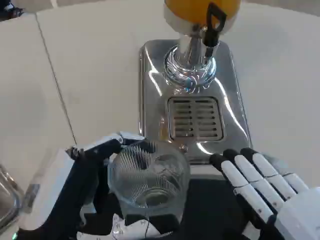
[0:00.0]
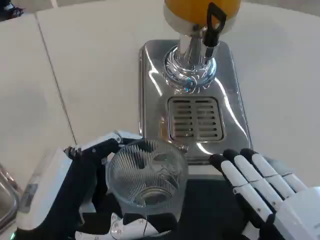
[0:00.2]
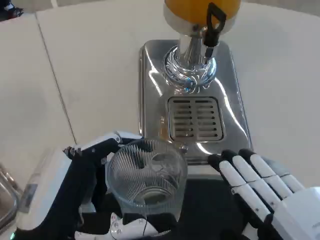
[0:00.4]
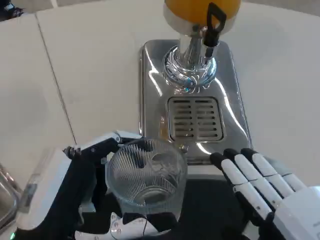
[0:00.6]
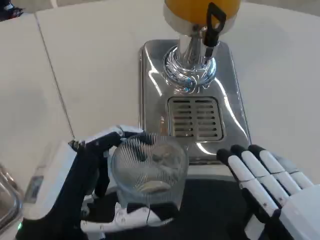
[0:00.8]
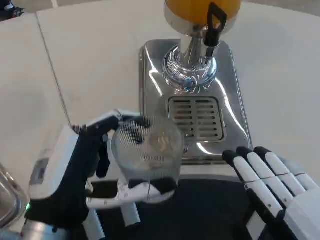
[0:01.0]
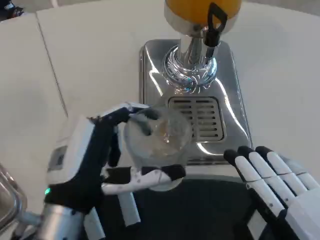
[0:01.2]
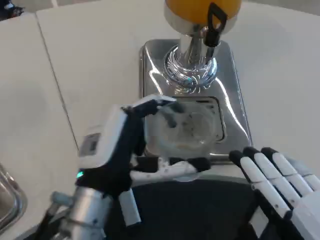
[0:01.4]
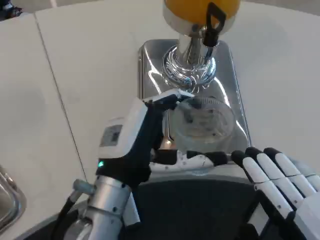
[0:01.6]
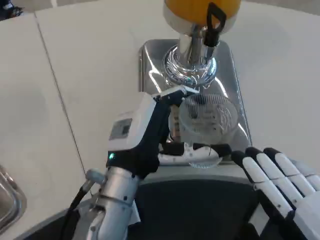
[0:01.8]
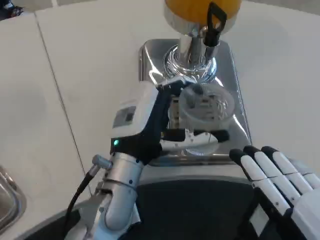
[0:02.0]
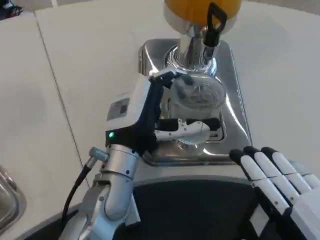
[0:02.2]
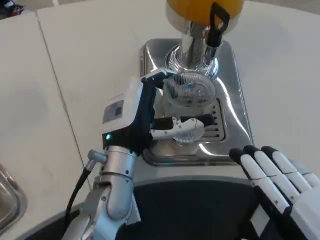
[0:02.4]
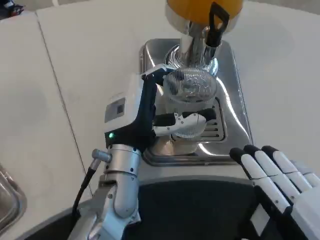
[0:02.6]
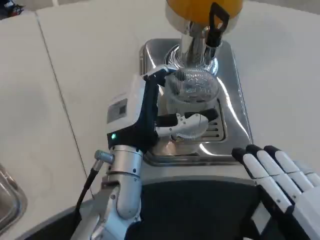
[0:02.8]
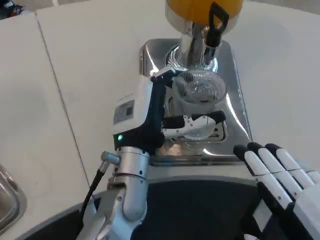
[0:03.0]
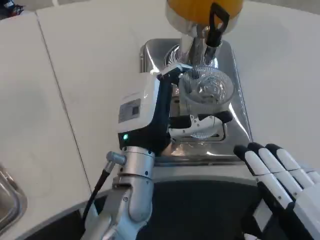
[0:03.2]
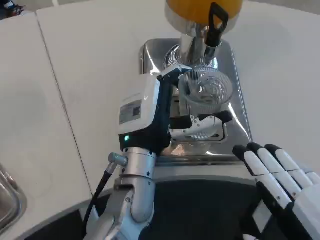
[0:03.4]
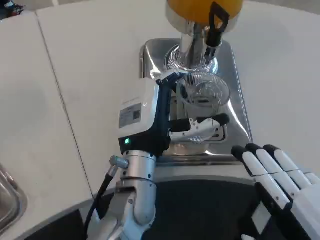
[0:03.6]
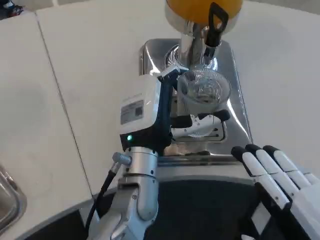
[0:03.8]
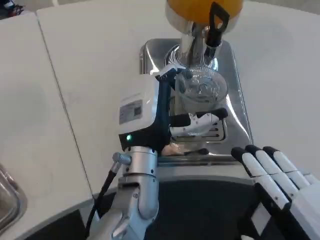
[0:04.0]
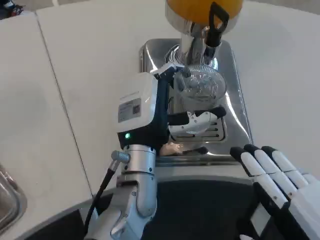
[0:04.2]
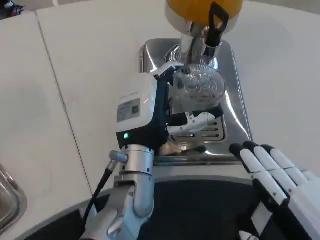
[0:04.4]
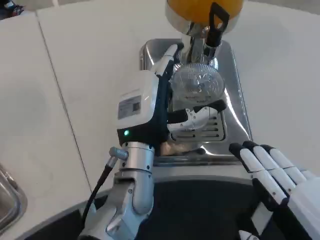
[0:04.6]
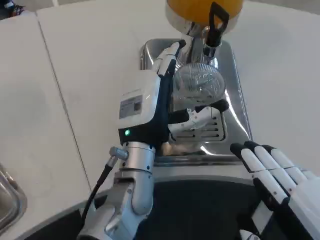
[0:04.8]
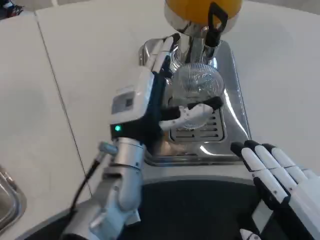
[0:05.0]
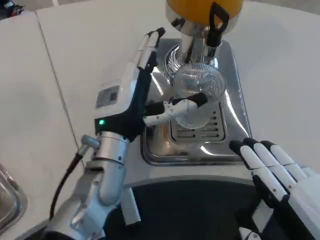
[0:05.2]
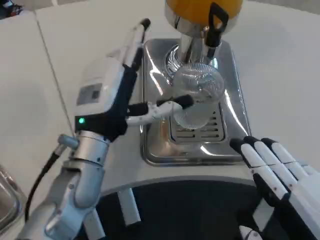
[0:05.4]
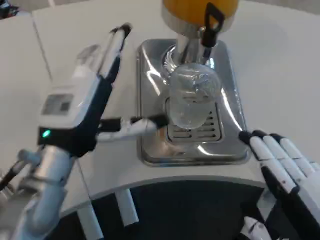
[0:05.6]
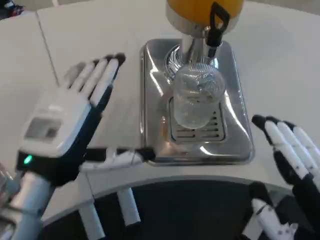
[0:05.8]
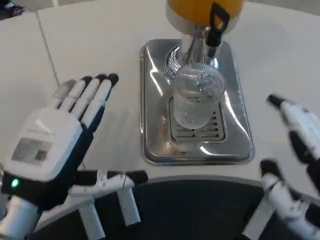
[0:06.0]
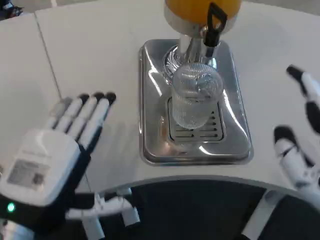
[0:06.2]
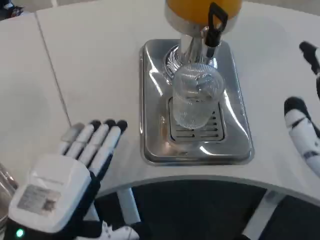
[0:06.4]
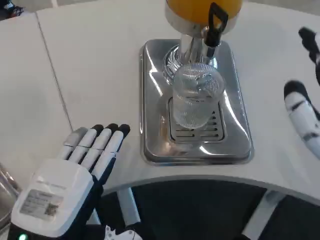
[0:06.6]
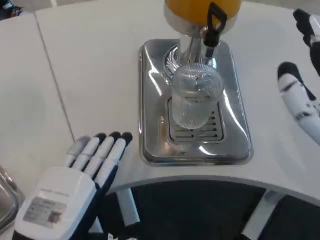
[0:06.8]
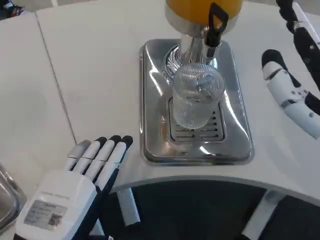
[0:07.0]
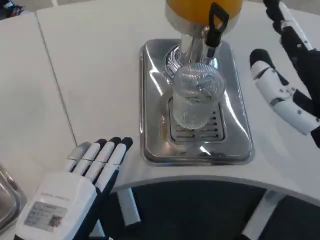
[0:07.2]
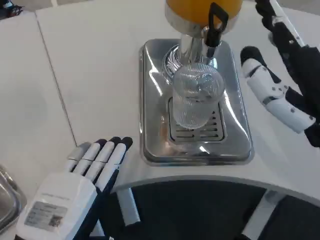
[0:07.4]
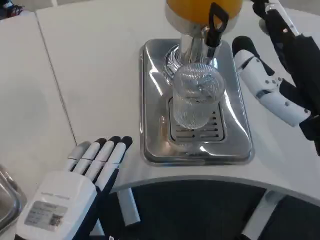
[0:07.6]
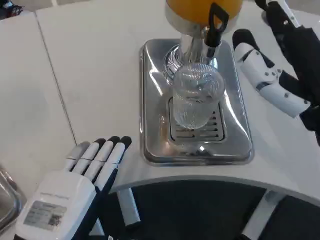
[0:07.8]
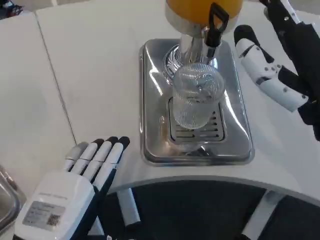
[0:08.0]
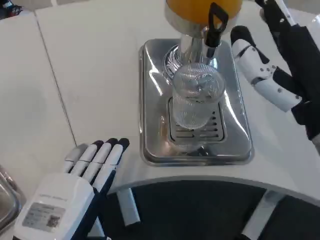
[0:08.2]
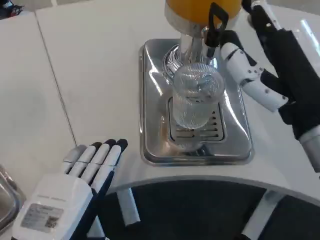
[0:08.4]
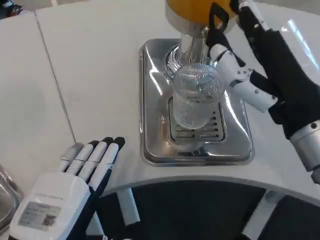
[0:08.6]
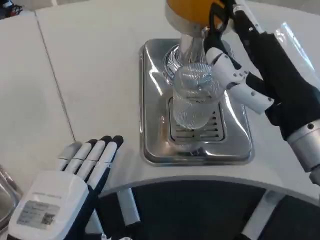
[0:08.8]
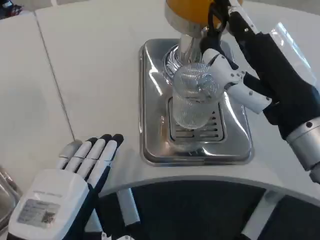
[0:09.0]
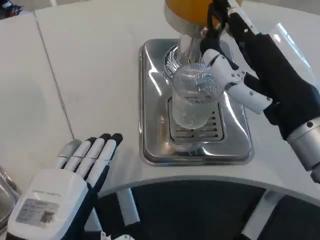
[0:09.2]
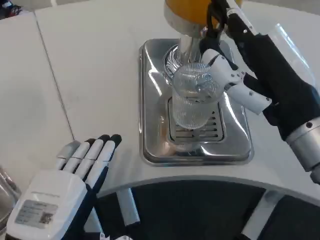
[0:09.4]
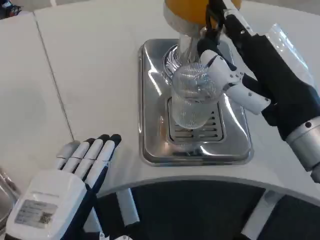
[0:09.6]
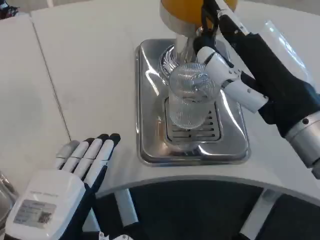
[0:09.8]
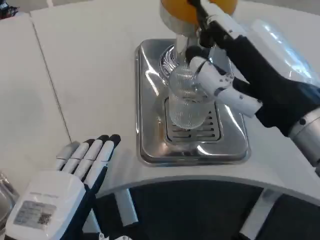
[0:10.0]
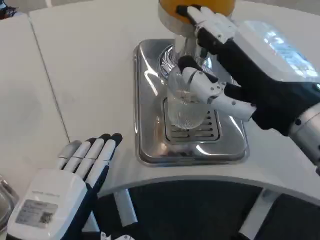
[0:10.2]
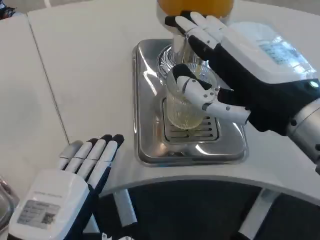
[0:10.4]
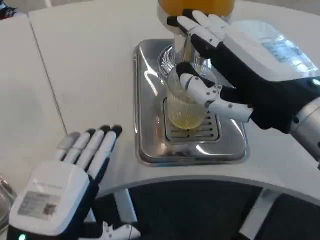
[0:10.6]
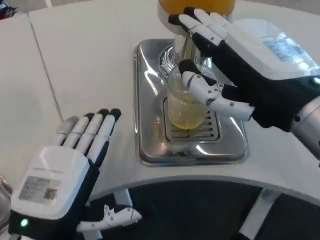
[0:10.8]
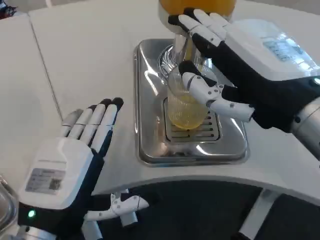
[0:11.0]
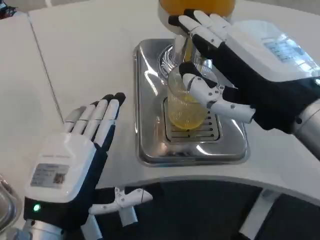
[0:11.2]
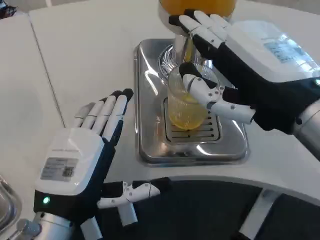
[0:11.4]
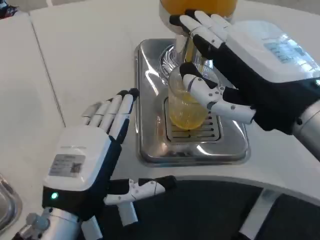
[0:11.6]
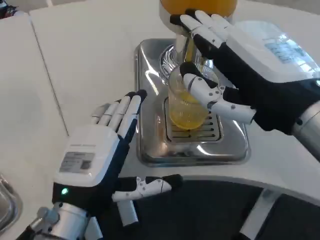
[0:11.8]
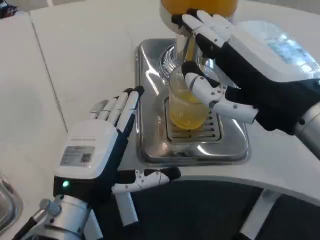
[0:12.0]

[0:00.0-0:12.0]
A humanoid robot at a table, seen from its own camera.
Task of the whole recording: Grasp the cup under the faucet to collect the drink, then remove the cup.
0:00.0 to 0:01.6: The left hand travels forward and to the right by approximately 15 cm.
0:01.6 to 0:03.0: The left hand moves forward, about 5 cm.
0:03.0 to 0:04.4: The hands move only a little.
0:04.4 to 0:06.0: The left hand is displaced to the left and backward by approximately 20 cm.
0:06.0 to 0:07.6: The left hand goes about 5 cm backward, while the right hand moves forward and upward, some 10 cm.
0:07.6 to 0:09.0: There are only small adjustments of the hands.
0:10.4 to 0:12.0: The left hand travels forward by roughly 10 cm.

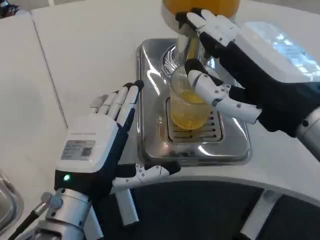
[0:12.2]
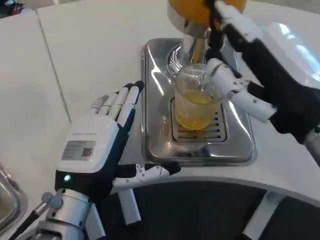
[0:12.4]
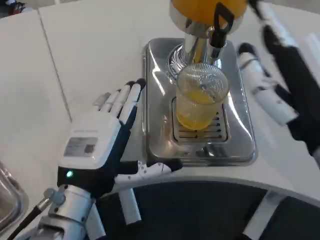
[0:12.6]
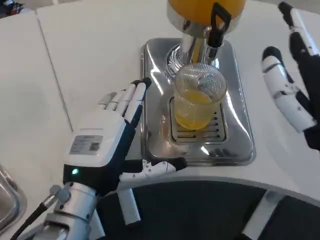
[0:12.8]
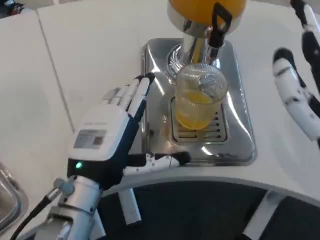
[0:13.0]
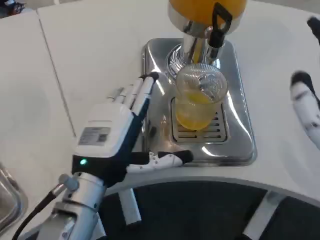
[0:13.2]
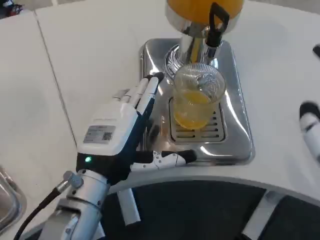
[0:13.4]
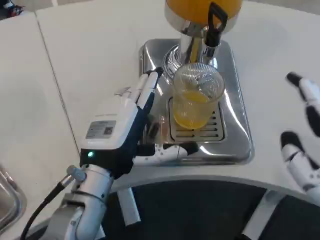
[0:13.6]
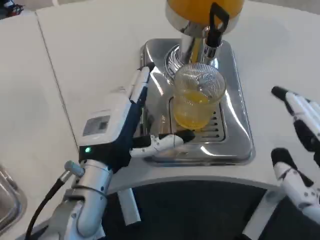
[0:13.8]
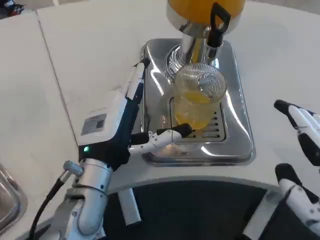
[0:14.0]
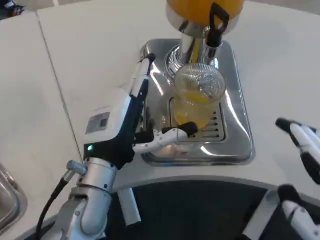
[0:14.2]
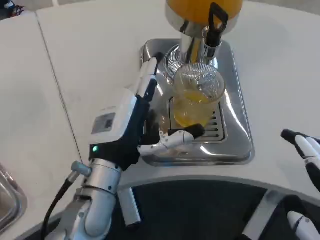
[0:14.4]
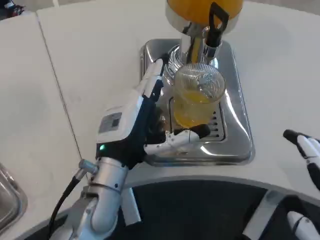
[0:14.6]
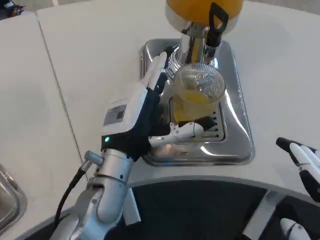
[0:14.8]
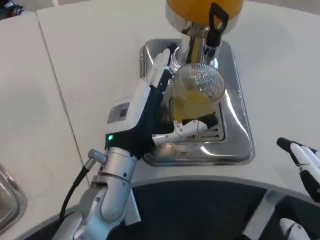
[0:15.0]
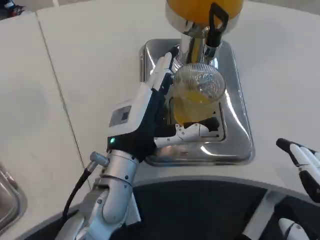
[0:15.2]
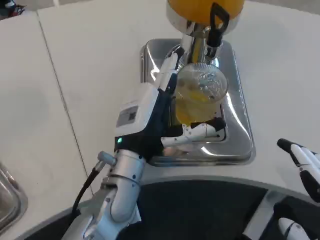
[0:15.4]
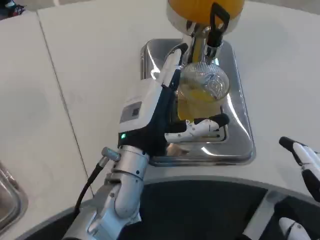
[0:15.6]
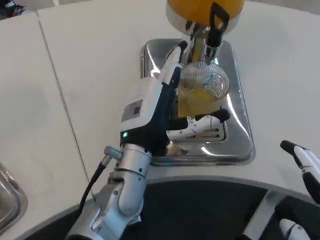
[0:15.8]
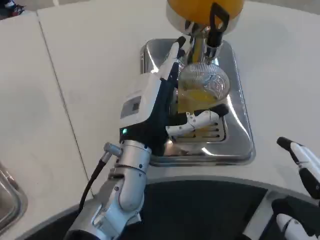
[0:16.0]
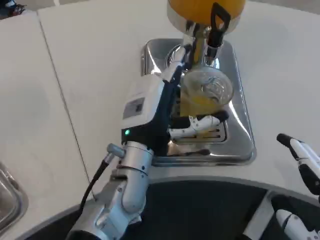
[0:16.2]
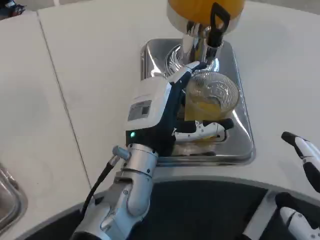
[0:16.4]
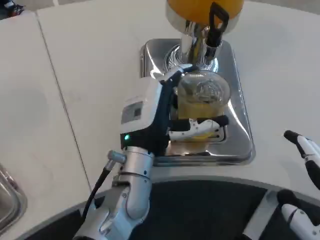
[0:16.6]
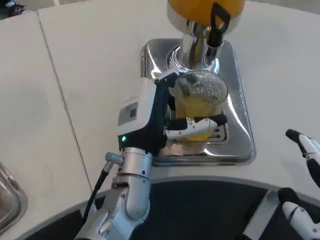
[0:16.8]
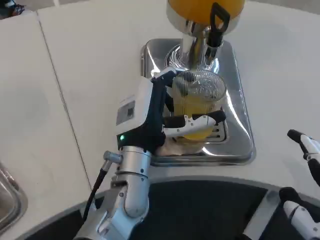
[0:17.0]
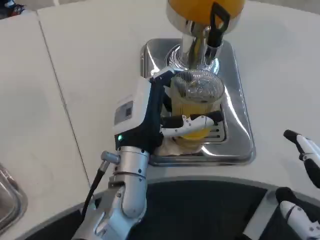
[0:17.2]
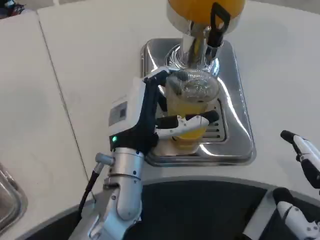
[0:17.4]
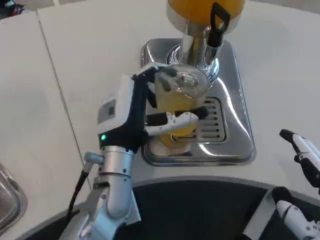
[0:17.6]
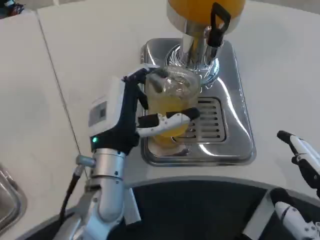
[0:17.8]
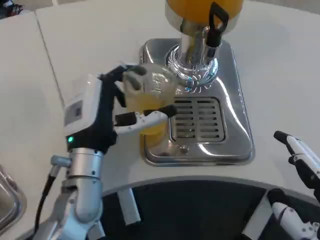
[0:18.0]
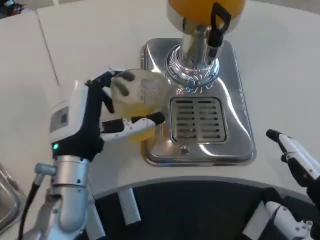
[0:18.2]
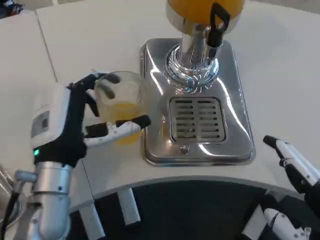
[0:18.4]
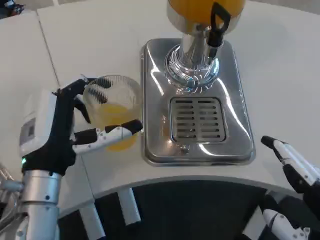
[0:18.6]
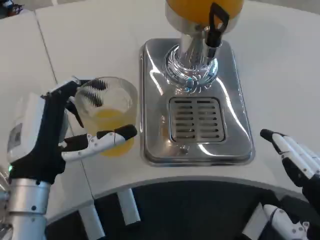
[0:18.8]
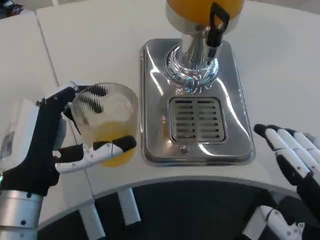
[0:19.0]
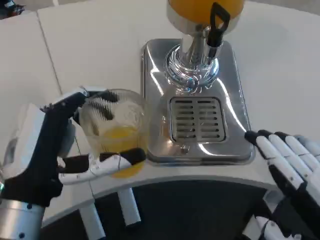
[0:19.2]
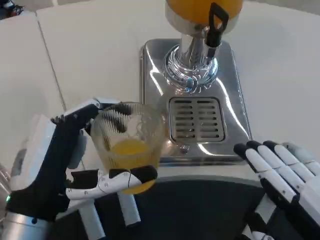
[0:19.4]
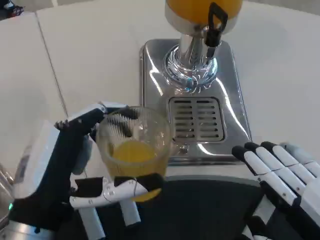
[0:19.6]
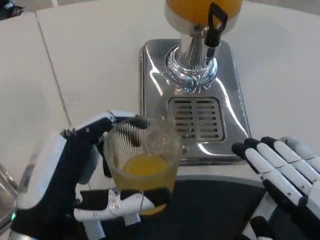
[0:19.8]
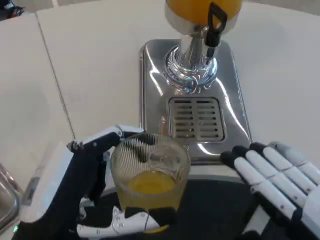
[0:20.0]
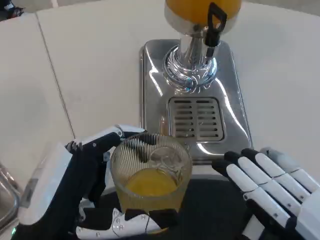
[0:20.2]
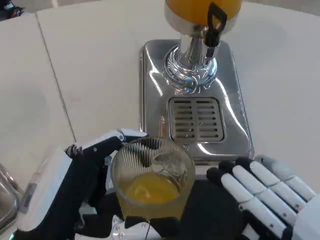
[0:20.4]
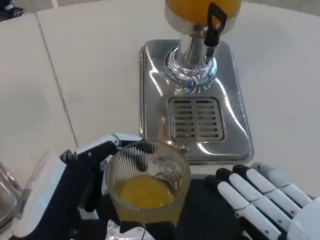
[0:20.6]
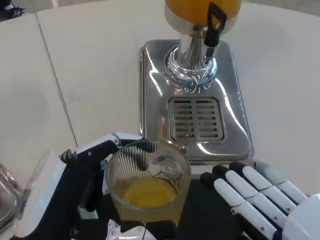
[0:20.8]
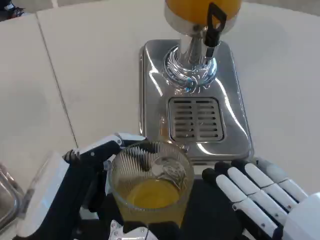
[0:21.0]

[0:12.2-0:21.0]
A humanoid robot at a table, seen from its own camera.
Task of the whole recording: Grasp the cup under the faucet to collect the drink, then remove the cup.
0:12.2 to 0:13.6: The right hand is displaced backward, downward and to the right by some 10 cm.
0:13.6 to 0:15.2: The hands stay close to where they were, moving slightly.
0:15.2 to 0:16.6: The hands stay close to where they were, moving slightly.
0:16.6 to 0:18.0: The left hand goes approximately 5 cm to the left.
0:18.0 to 0:19.6: The left hand travels backward by roughly 15 cm.

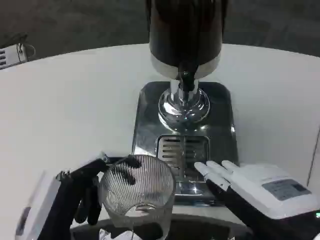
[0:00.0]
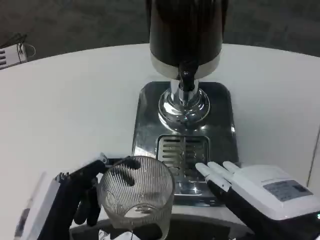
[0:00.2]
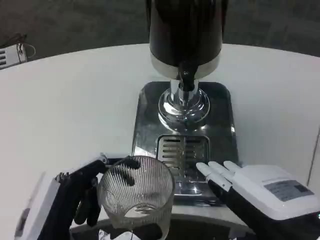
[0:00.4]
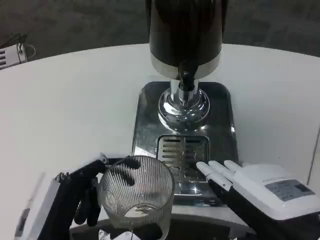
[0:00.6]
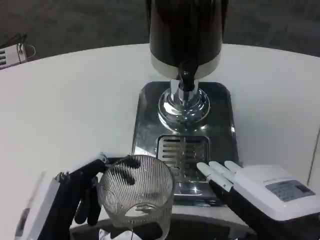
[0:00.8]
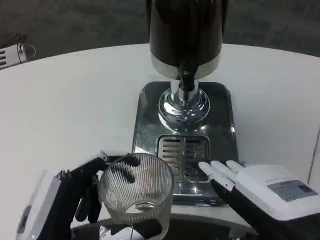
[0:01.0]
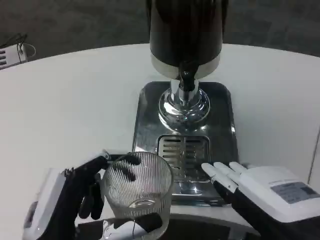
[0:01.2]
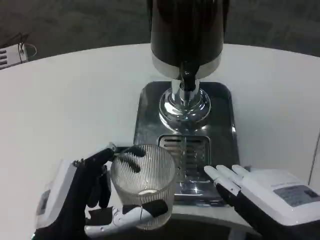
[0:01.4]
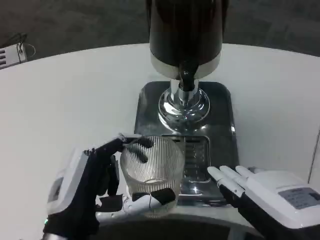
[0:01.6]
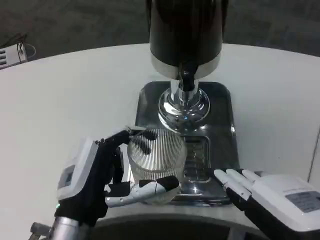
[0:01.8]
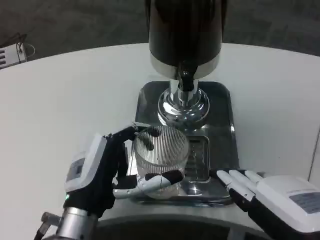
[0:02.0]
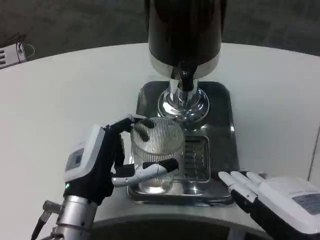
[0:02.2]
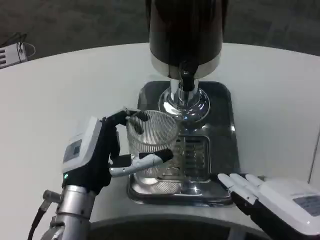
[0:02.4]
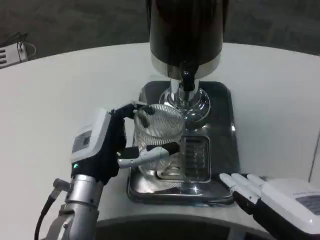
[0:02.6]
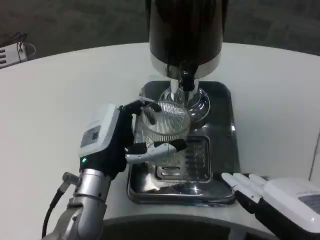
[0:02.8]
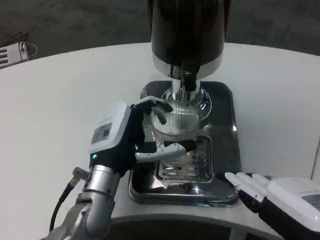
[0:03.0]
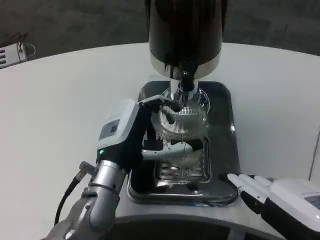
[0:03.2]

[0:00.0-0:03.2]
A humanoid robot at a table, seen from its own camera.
Task of the whole recording: Grasp the cup under the faucet to collect the drink, then remove the cup.
0:00.0 to 0:01.6: The left hand heads forward, covering about 5 cm.
0:01.6 to 0:03.2: The left hand heads forward, covering about 10 cm.
